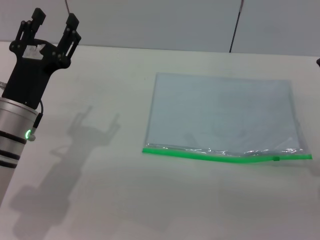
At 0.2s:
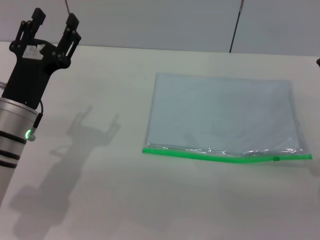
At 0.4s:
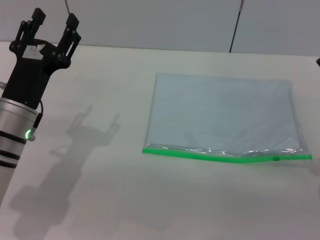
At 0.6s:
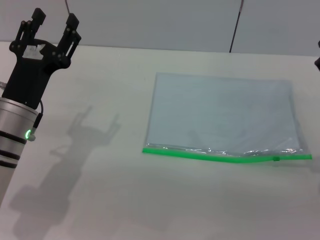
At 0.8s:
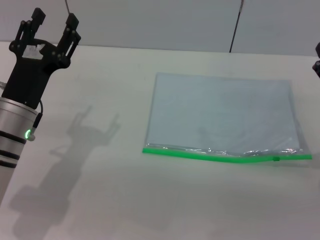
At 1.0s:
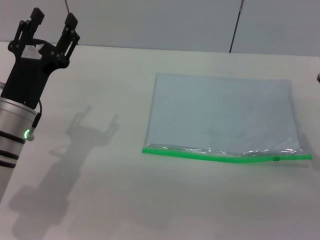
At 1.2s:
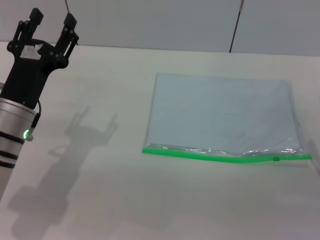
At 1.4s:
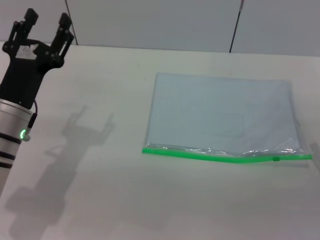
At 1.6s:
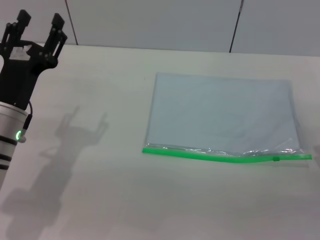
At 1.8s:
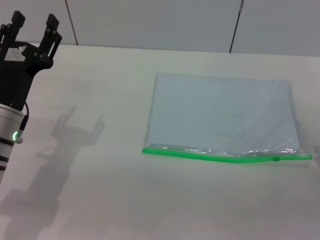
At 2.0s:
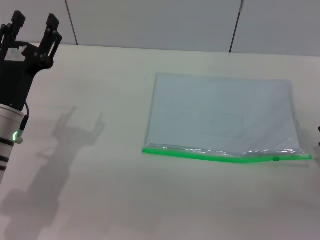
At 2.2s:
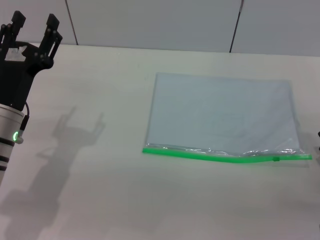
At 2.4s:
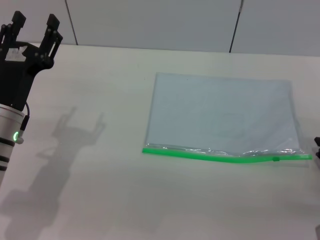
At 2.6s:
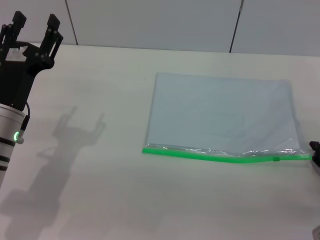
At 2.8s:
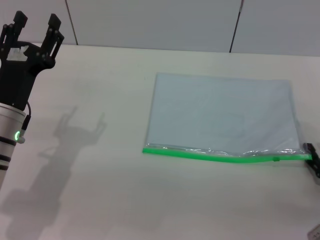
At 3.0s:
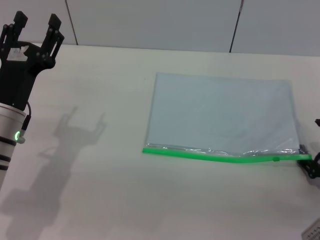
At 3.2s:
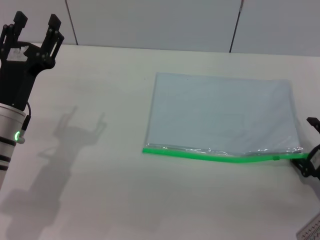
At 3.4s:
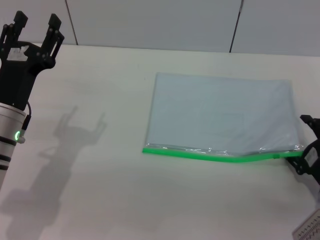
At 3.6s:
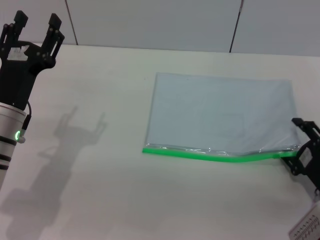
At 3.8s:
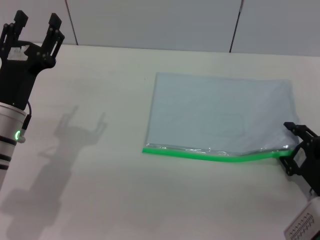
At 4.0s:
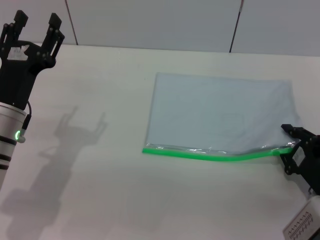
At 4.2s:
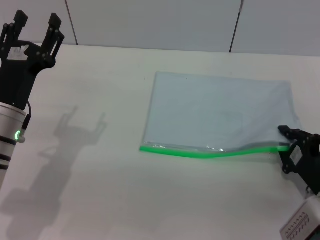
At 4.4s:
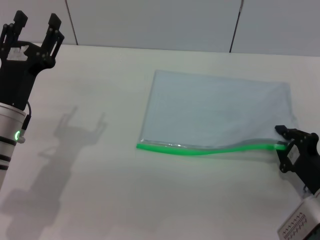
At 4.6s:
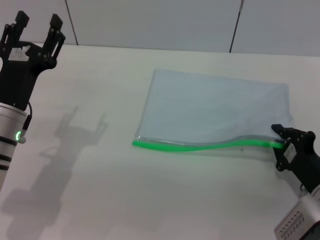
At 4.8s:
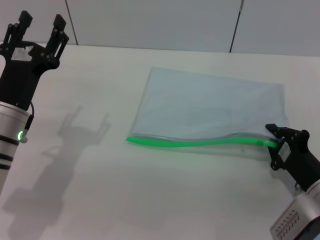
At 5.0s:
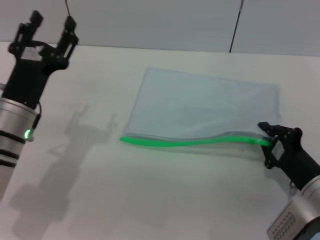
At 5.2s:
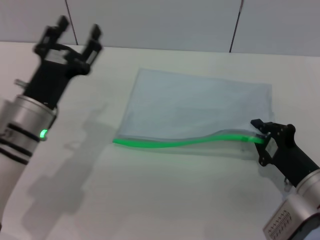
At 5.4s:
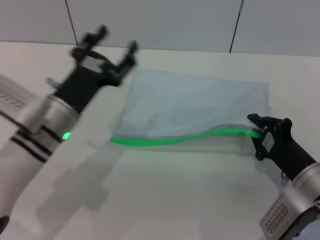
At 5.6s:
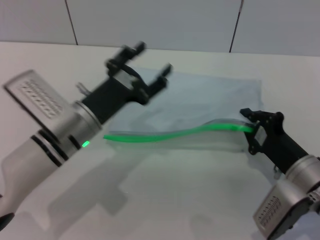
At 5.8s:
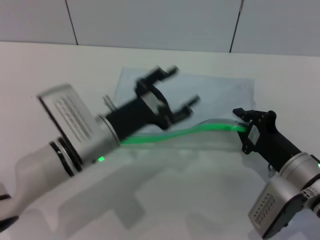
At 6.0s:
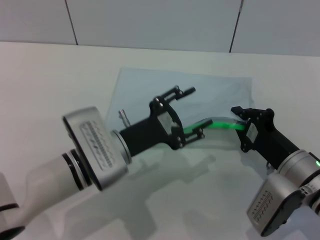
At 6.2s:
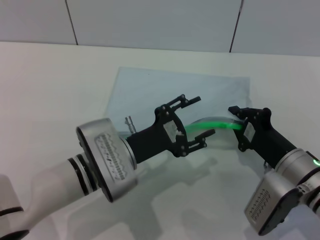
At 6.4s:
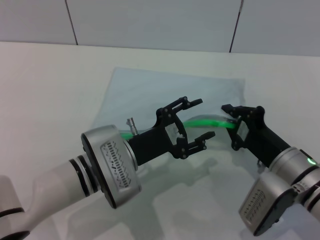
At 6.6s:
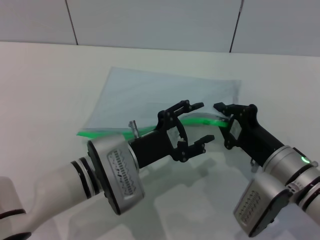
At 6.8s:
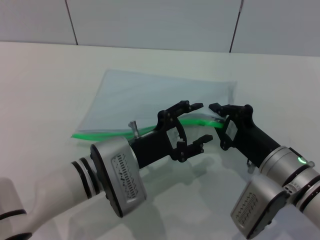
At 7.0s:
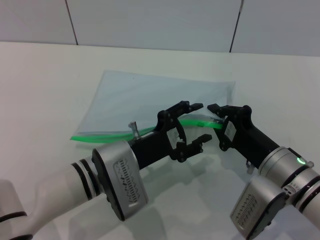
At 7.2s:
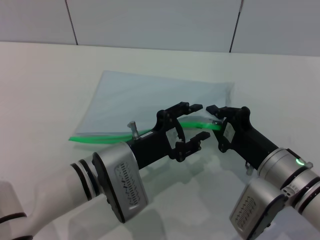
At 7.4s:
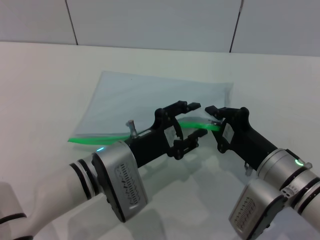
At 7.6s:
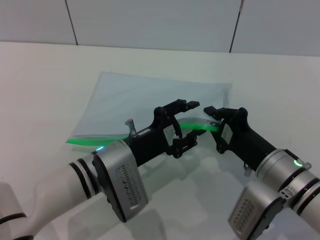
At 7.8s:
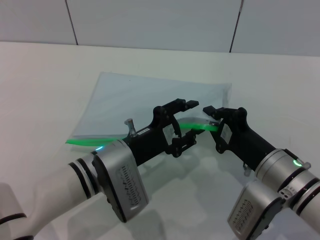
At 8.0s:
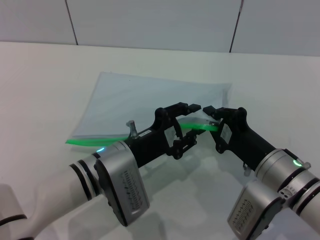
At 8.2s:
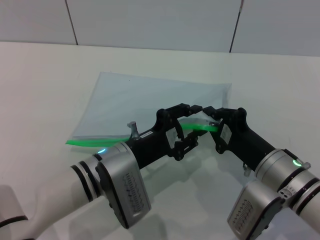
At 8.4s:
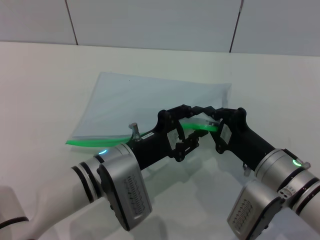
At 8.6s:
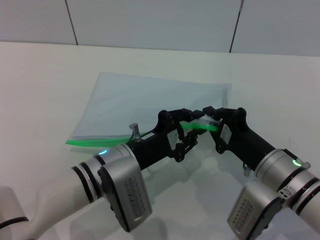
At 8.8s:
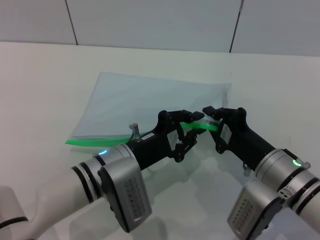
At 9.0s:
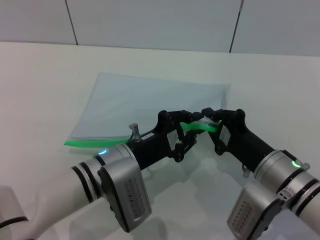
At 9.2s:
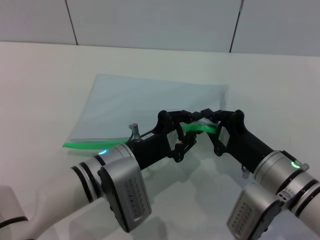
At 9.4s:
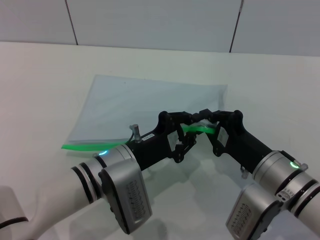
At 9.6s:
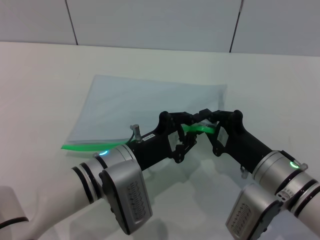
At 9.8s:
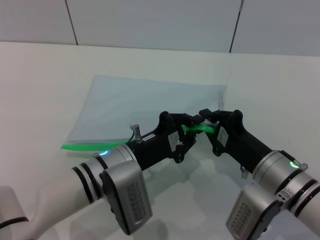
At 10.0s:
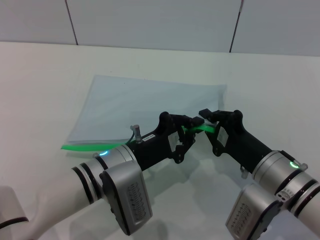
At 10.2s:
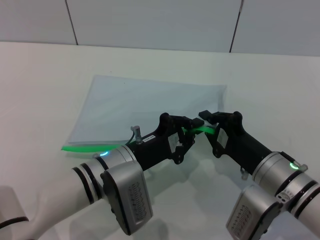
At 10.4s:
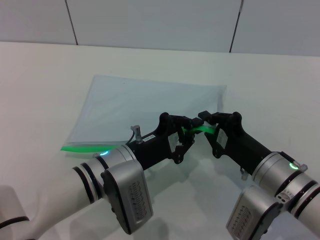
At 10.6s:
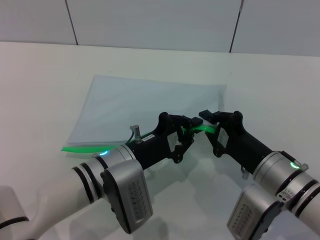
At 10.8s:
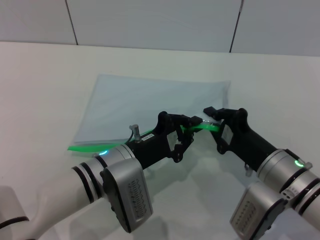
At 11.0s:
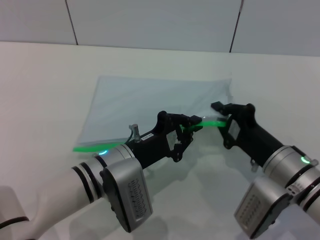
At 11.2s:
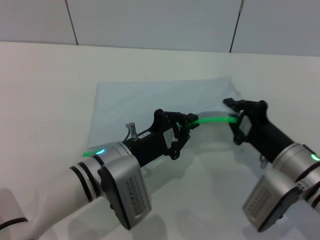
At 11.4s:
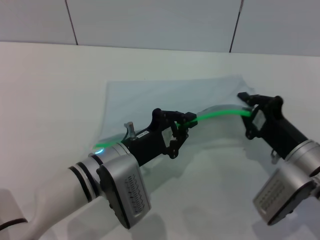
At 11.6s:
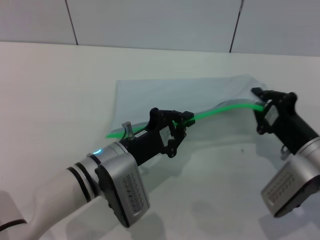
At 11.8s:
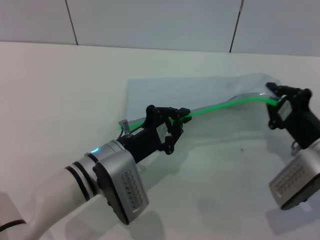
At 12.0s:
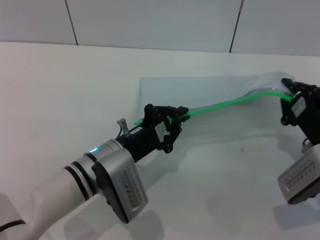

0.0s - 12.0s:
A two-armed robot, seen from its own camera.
Step, 0.0s - 5.0s: Pick up the transparent plastic bag with the right gripper.
3.0s - 4.4s: The right gripper closes.
4.4s - 6.0s: The right gripper shifts about 5 cm to the left. Meanwhile the left gripper goes roughly 10 cm to the right.
7.6s - 9.0s: The left gripper closes.
9.0s - 10.4s: Both grippers stay about where they are.
10.4s - 12.0s: The right gripper moves to the right, about 10 cm.

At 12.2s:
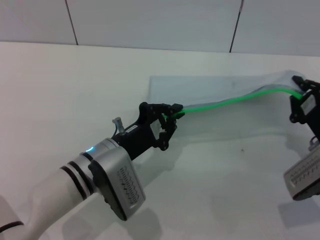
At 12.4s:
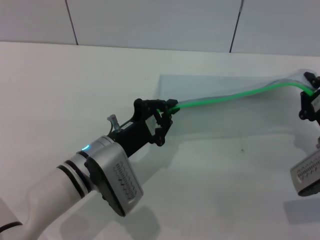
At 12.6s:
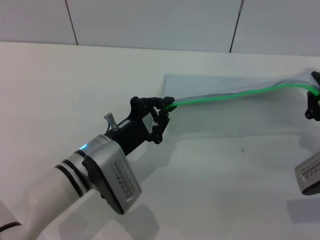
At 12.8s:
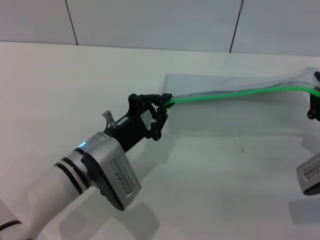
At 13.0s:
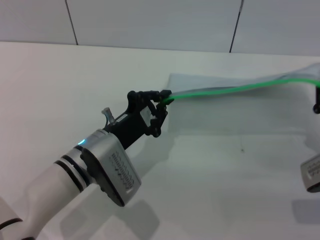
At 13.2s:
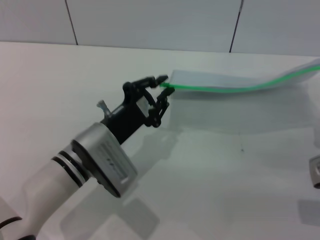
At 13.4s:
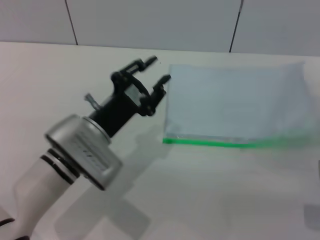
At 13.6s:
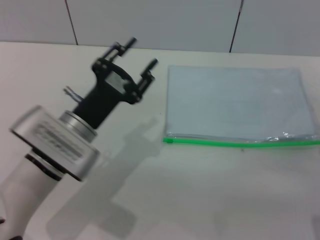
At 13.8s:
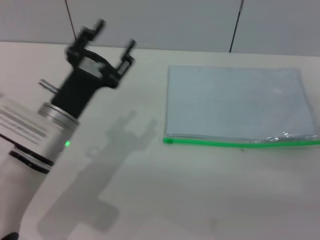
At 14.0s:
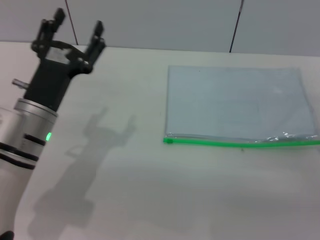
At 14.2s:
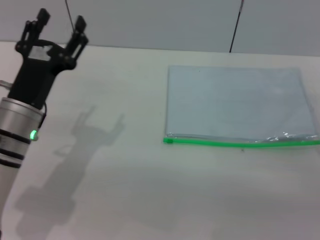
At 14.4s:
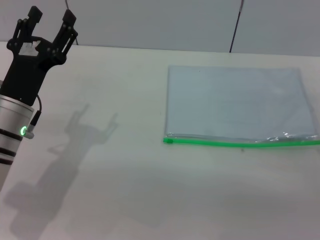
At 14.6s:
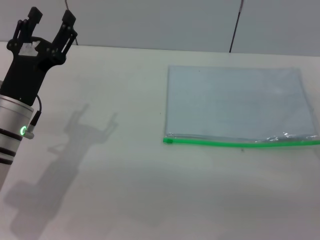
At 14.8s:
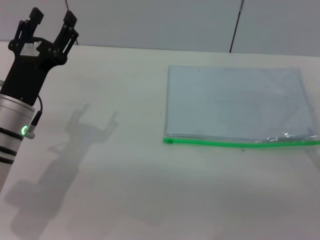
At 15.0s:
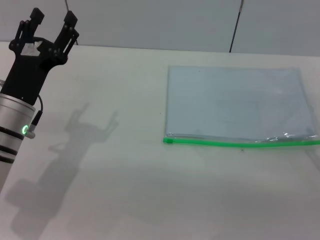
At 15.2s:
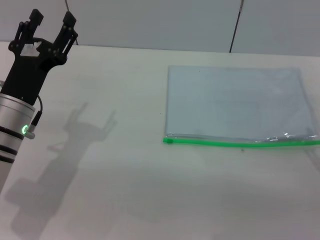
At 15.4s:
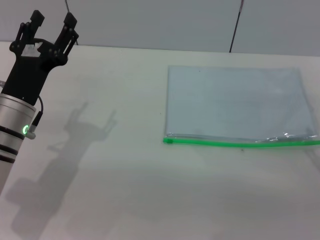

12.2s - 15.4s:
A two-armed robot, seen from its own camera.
Step, 13.4s - 14.0s: Place the transparent plastic bag.
12.2s - 13.8s: The right gripper ends up some 5 cm from where it was, and opens its fingers. The left gripper shifts roughly 5 cm to the left, and opens its fingers.
13.8s - 15.4s: The left gripper heads to the left, covering some 5 cm.

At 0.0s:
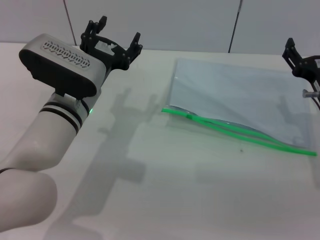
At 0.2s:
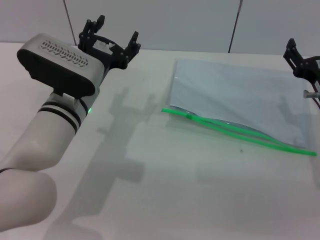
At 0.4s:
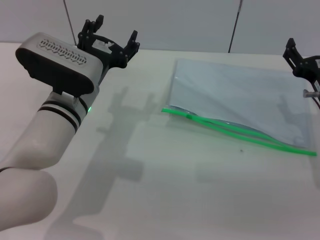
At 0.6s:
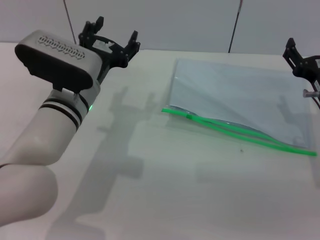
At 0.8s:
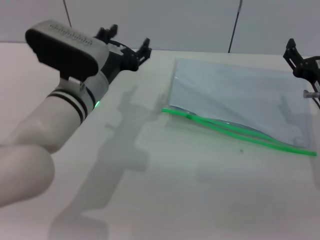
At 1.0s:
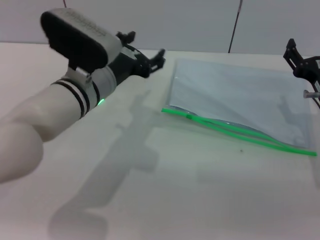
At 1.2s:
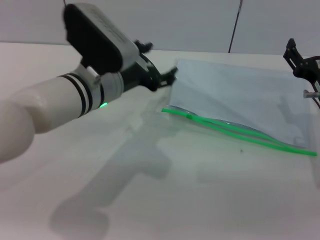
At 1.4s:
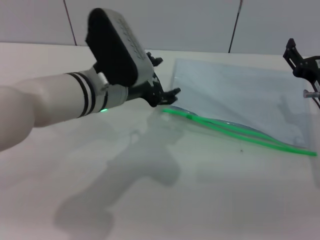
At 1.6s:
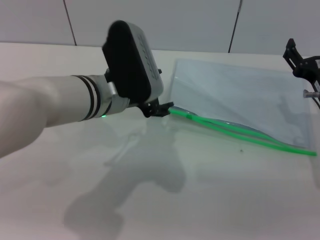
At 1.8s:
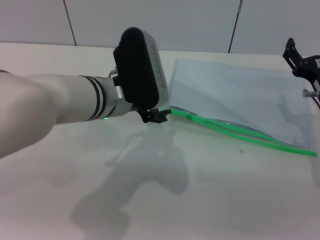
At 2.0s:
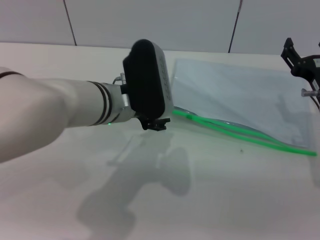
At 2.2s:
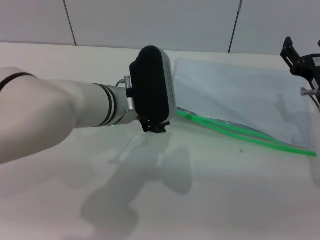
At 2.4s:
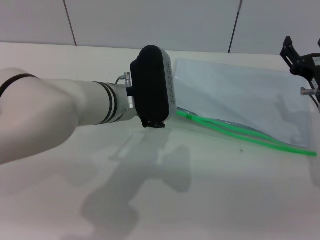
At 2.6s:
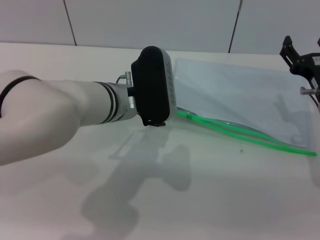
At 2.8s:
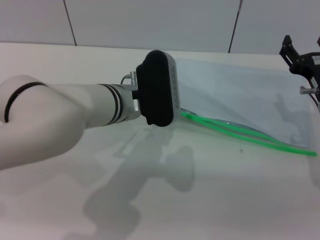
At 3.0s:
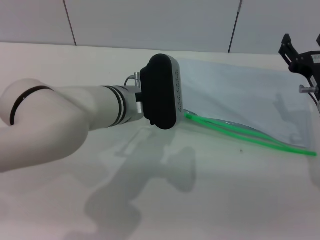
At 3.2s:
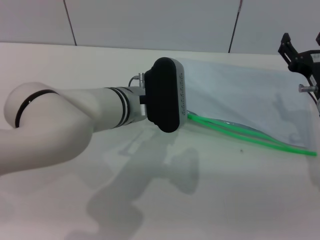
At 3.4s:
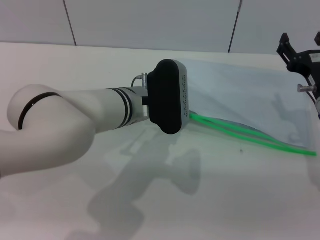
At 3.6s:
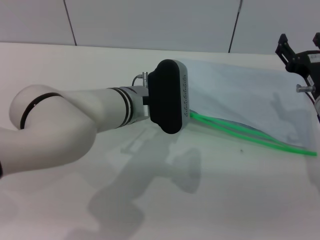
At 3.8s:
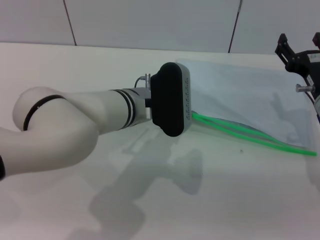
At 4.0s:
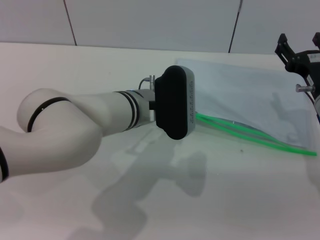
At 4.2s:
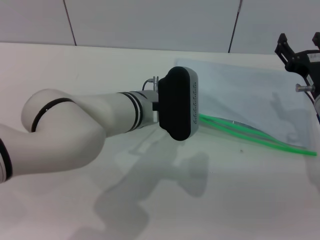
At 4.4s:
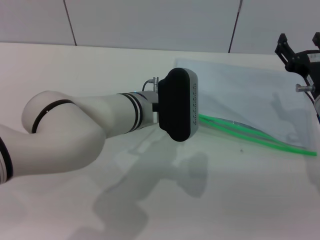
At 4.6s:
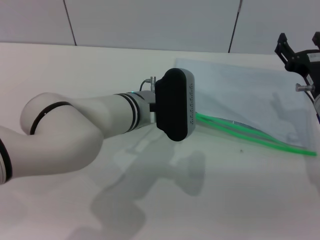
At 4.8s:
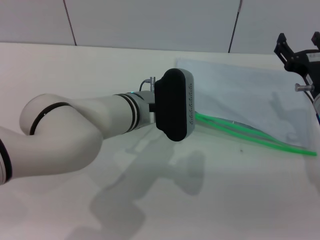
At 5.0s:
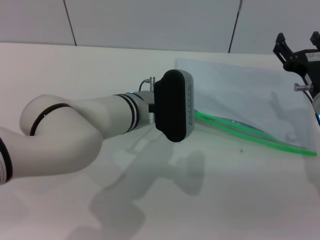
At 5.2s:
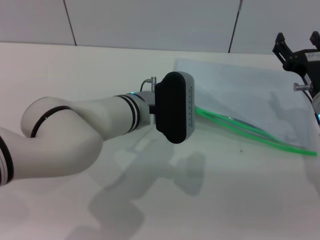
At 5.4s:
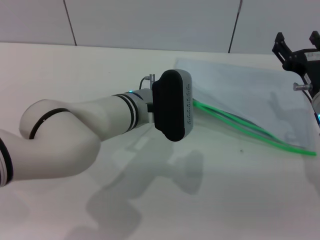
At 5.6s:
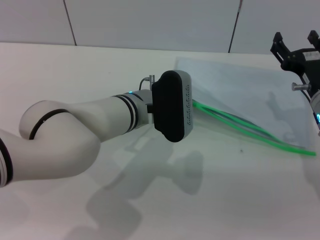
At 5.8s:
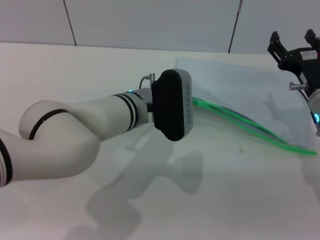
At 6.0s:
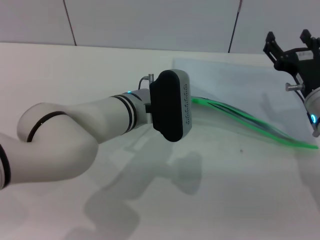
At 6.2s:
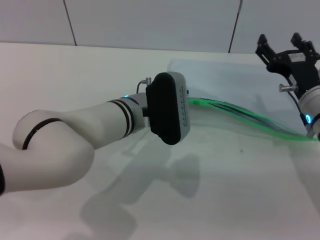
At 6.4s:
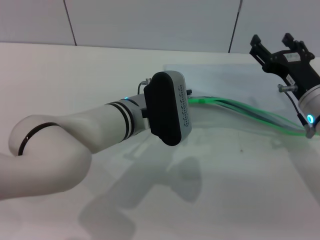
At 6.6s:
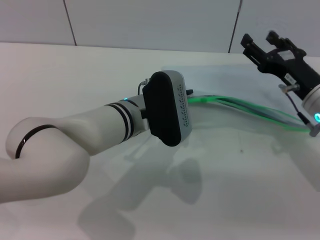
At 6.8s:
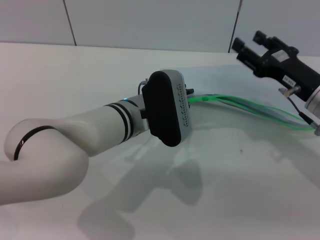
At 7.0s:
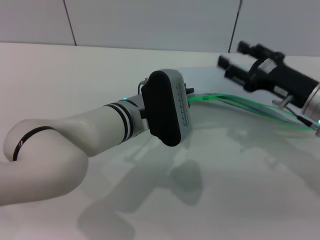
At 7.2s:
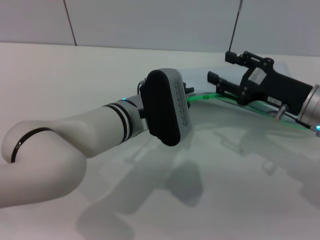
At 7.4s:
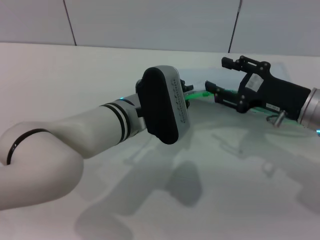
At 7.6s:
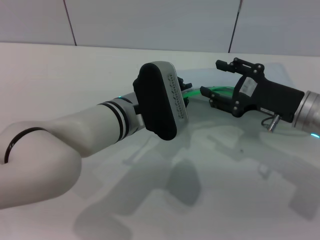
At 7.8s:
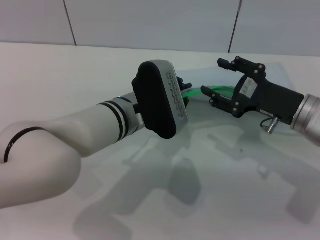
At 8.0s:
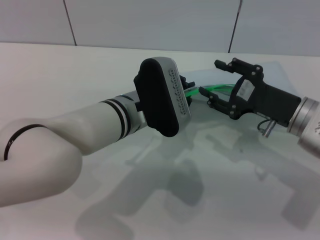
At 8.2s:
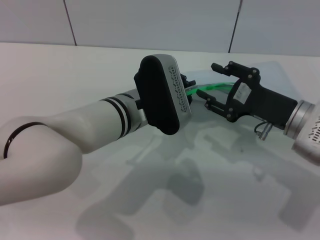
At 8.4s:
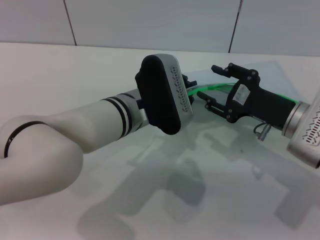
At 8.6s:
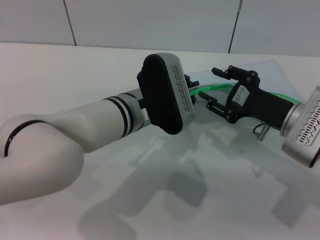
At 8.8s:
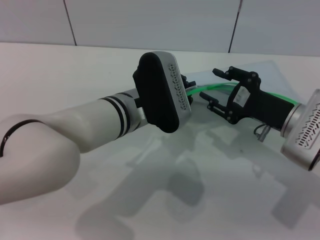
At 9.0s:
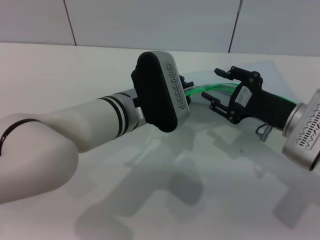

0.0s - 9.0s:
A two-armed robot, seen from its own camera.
Step, 0.0s - 6.4s: Pick up the transparent plastic bag with the left gripper.
0.0s - 1.6s: The left gripper ends up about 5 cm from where it was.
1.6s - 3.0s: The grippers make only small movements.
3.0s - 4.4s: There are only small adjustments of the grippers.
4.4s - 6.0s: The left gripper closes its fingers.
7.6s - 9.0s: There are only small adjustments of the grippers.
